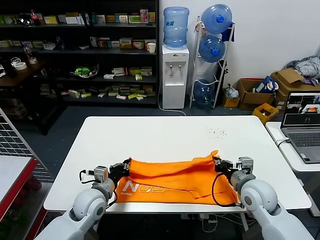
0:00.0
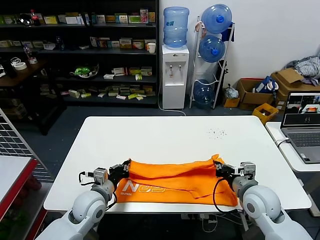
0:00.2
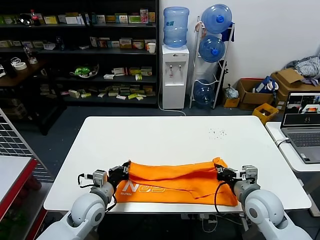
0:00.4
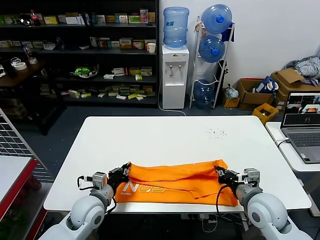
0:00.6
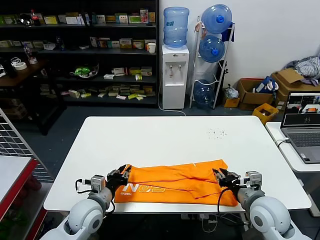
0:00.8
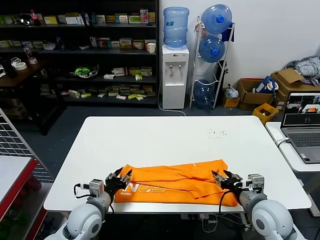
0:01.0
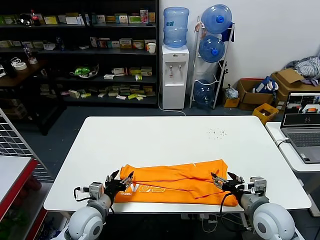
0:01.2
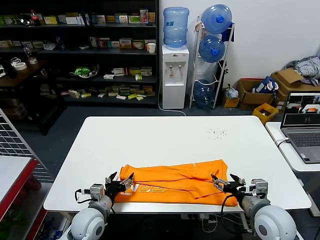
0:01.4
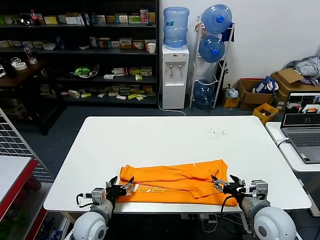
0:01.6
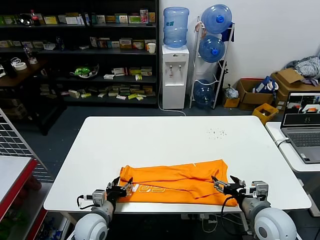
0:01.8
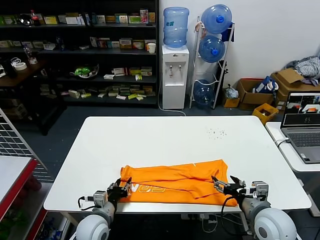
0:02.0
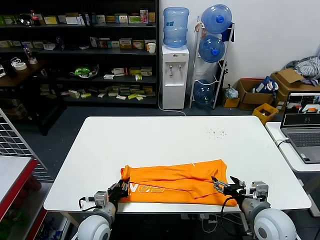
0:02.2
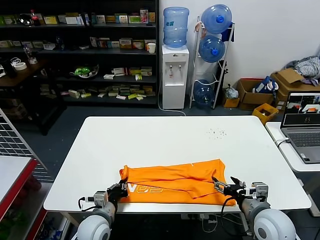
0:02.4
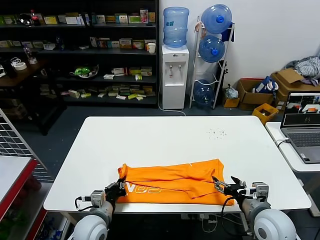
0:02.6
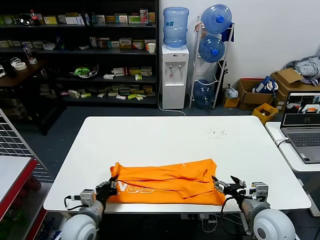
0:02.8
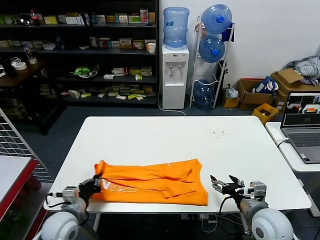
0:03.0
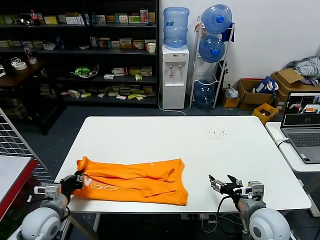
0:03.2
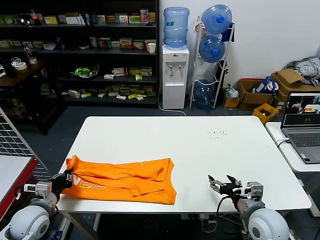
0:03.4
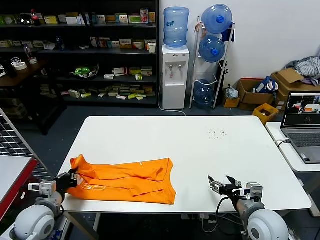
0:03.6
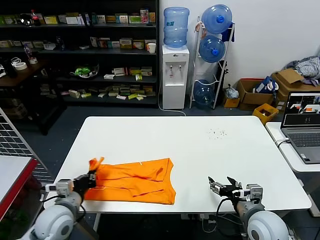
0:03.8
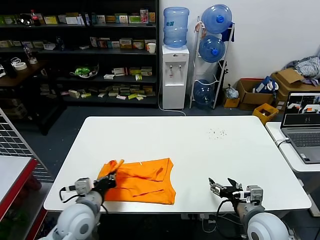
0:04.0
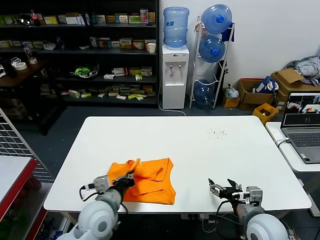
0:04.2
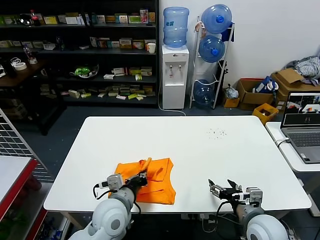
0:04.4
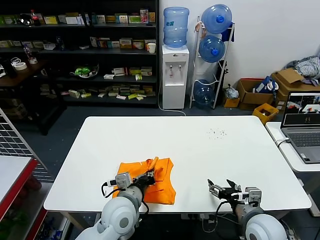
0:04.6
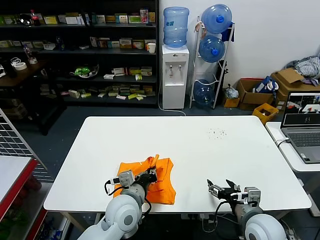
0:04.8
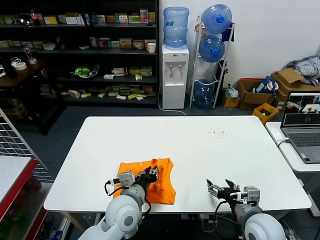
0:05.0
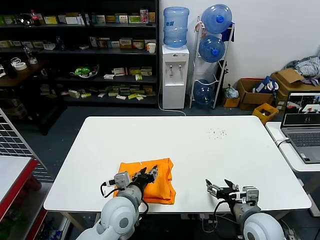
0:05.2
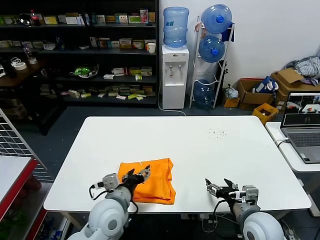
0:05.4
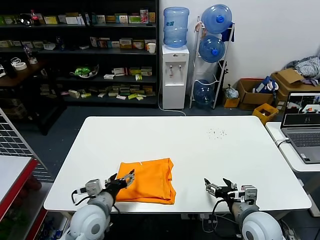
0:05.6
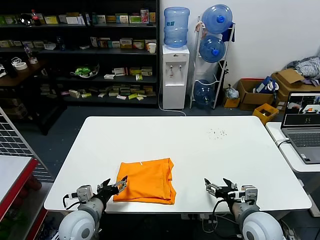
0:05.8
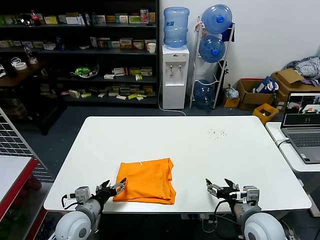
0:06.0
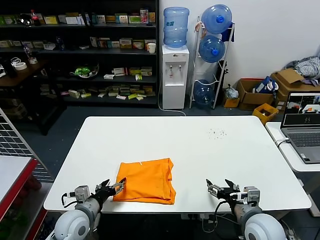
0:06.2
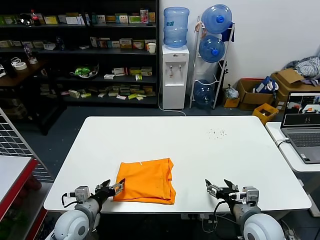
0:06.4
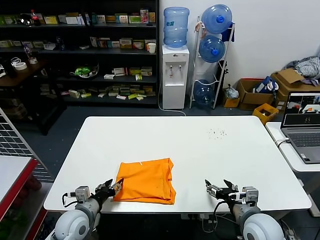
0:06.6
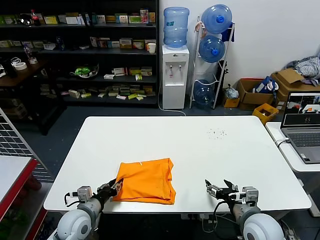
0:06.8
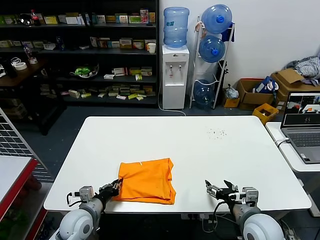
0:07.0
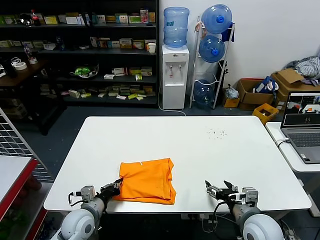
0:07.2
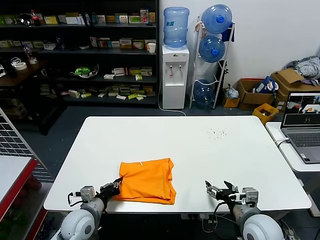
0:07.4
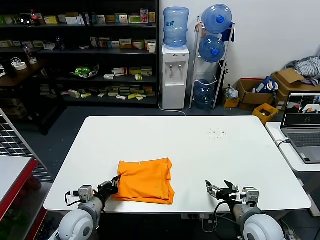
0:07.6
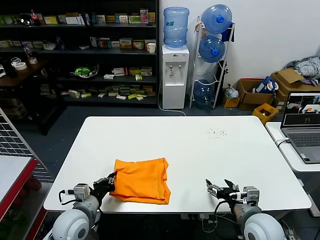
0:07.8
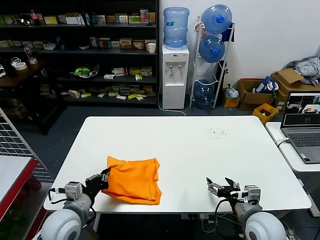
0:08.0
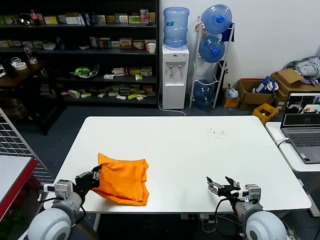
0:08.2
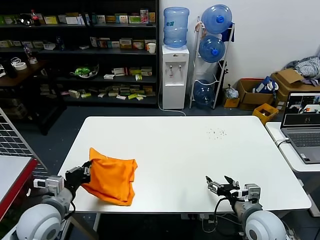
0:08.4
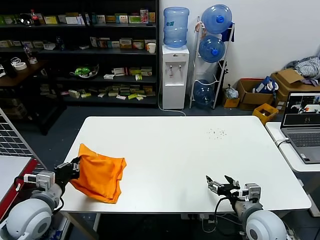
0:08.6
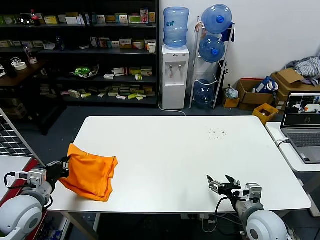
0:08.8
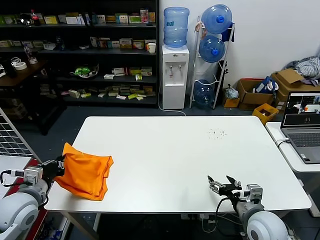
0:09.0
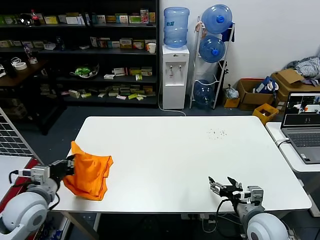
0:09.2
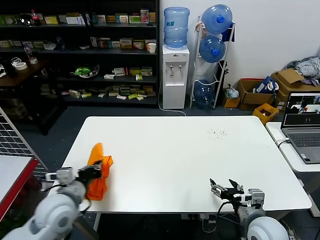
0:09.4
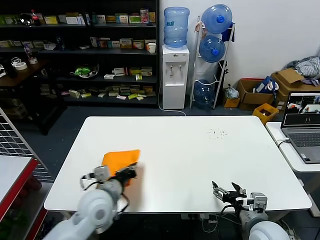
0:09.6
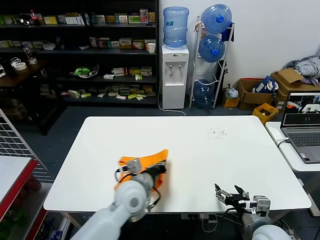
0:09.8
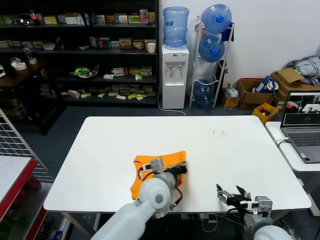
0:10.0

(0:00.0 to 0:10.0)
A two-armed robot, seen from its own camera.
Task of the whole recording: fold and organize the clothes.
Step, 0:01.2 - 0:02.2: use the left gripper to clamp the left edge of the fabric.
Step, 0:02.4 - 0:05.2: use the left gripper to drag the left edge of the fabric to the left and folds it over the right edge.
0:00.0 - 0:01.4: The left gripper shifts by about 5 cm, and opens up, while the right gripper goes roughly 5 cm backward, and opens its fingers.
0:01.4 - 0:02.8: The left gripper closes its fingers.
0:02.8 - 0:04.2: The left gripper travels upward by about 5 cm, and travels to the left and back again, approximately 15 cm each way.
0:04.2 - 0:05.8: The left gripper changes place by approximately 5 cm, and opens.
0:05.8 - 0:07.2: The left gripper travels downward by approximately 5 cm, and closes up.
0:07.2 - 0:08.6: The left gripper goes some 15 cm upward and to the left.
0:08.6 - 0:10.0: The left gripper heads to the right, covering some 30 cm.

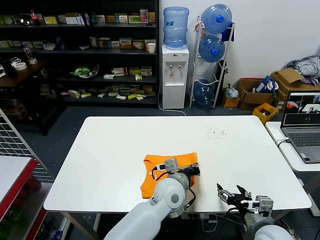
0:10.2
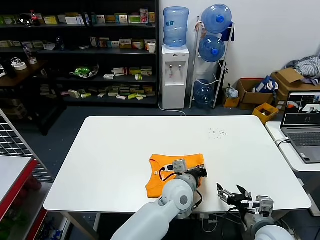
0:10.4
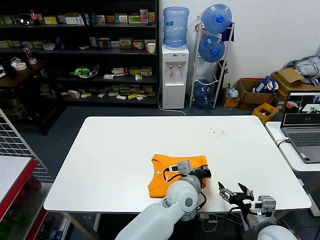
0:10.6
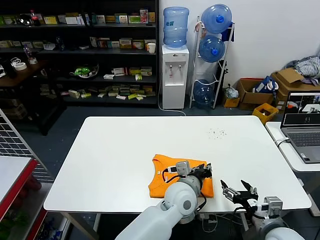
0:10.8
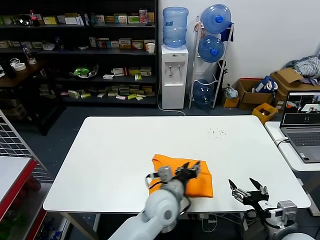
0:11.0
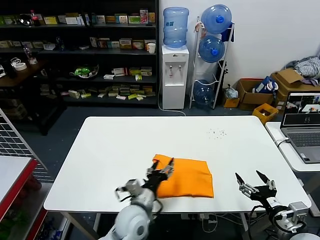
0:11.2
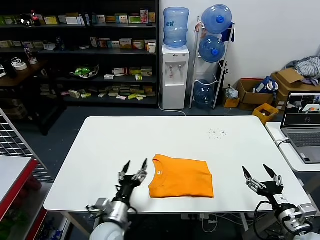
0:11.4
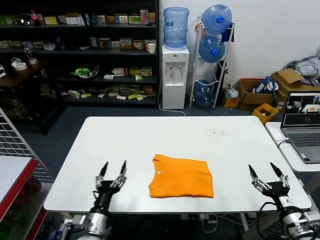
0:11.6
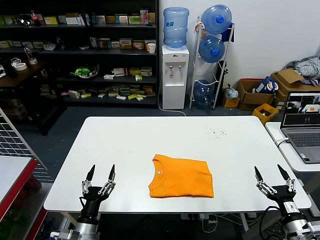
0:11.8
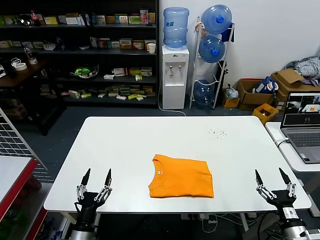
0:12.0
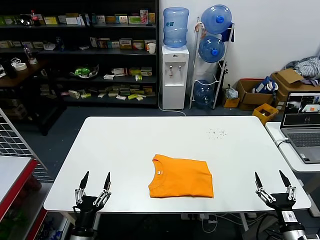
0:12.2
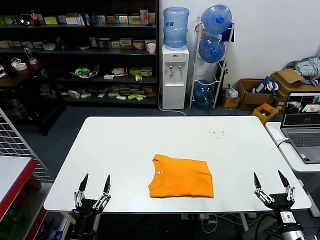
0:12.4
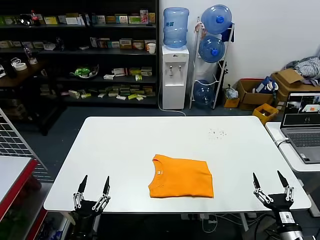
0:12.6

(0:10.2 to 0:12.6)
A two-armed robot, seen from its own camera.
Task of the whole recording: fold and organize the clothes.
0:10.2 - 0:11.4: The right gripper shifts roughly 10 cm to the right; the left gripper is displaced to the left, backward and downward by some 20 cm, and opens its fingers.
0:11.4 - 0:12.6: The right gripper moves downward, about 5 cm. The left gripper moves to the left, backward and downward, roughly 15 cm.

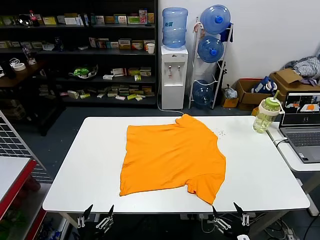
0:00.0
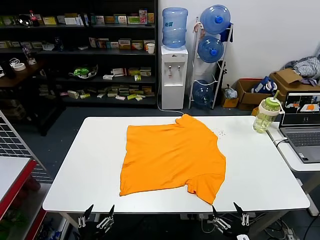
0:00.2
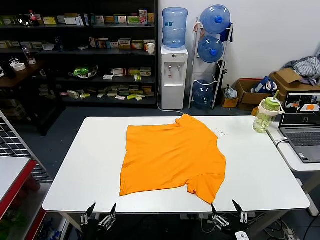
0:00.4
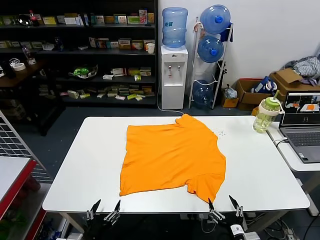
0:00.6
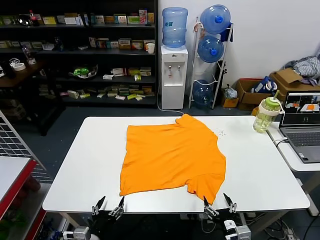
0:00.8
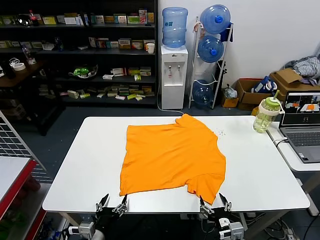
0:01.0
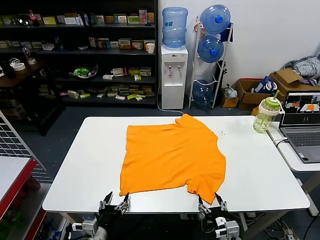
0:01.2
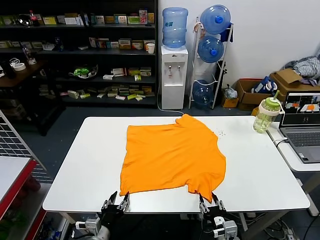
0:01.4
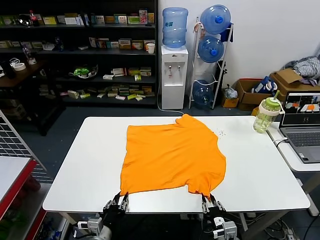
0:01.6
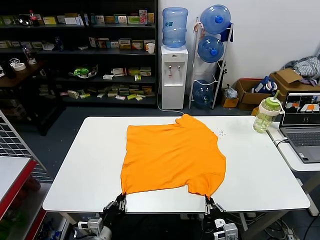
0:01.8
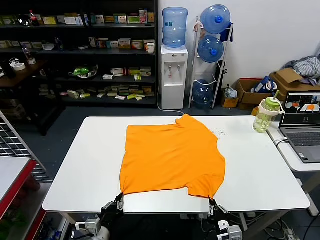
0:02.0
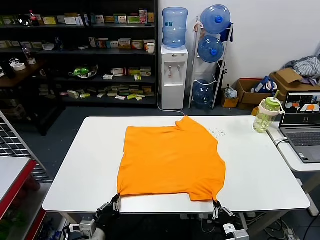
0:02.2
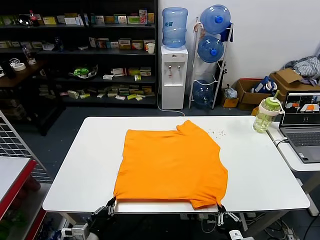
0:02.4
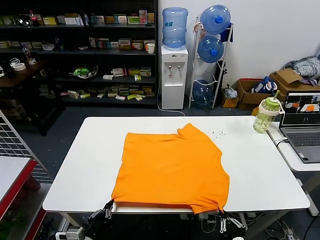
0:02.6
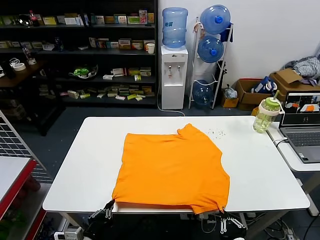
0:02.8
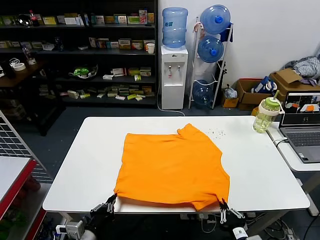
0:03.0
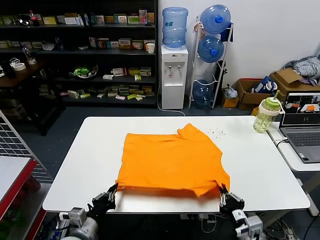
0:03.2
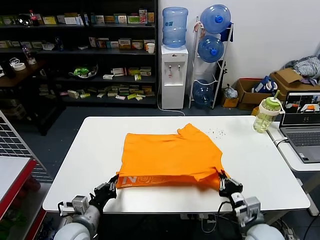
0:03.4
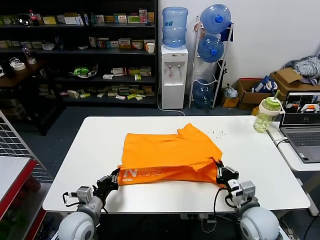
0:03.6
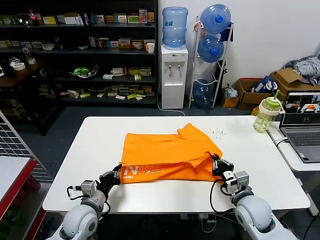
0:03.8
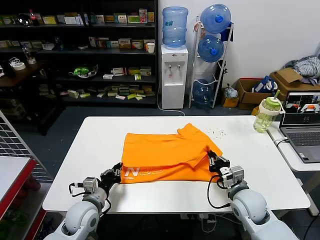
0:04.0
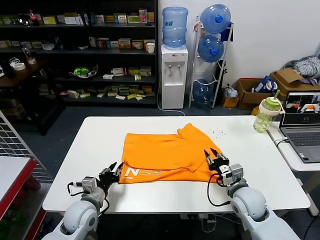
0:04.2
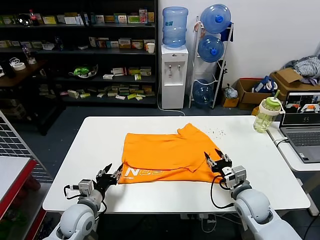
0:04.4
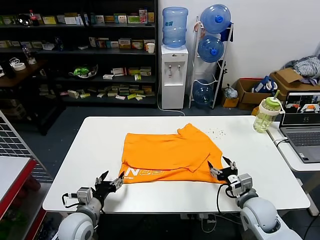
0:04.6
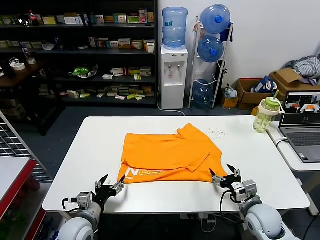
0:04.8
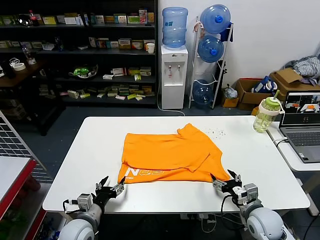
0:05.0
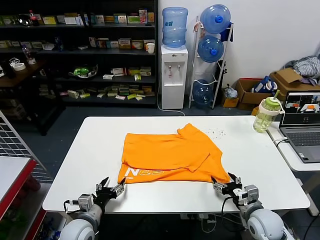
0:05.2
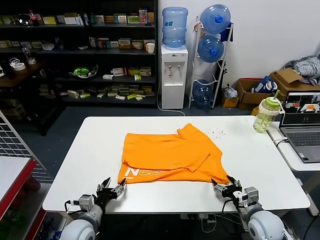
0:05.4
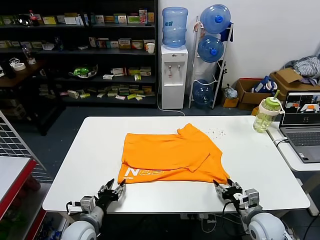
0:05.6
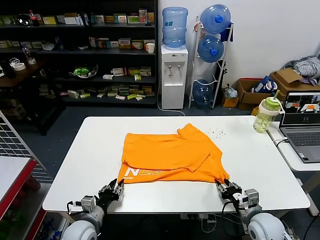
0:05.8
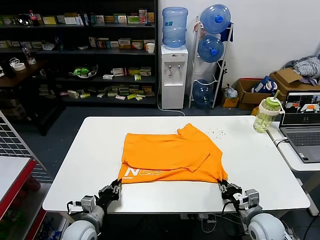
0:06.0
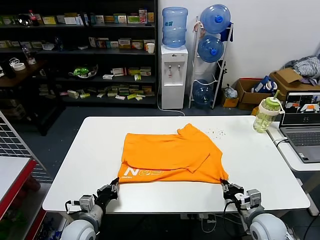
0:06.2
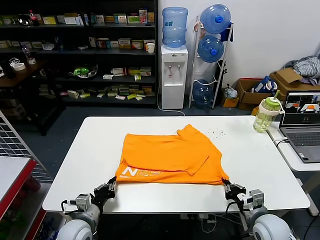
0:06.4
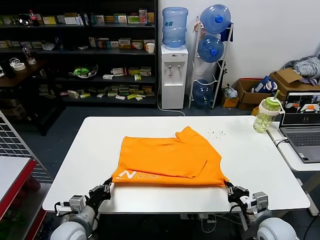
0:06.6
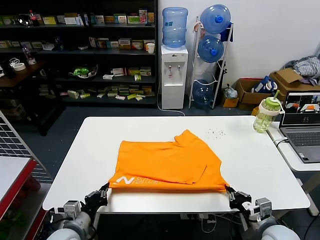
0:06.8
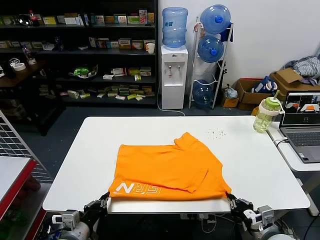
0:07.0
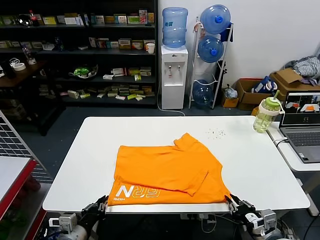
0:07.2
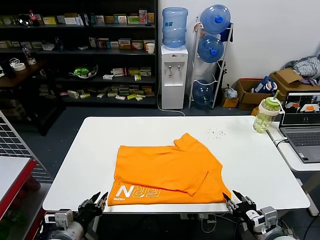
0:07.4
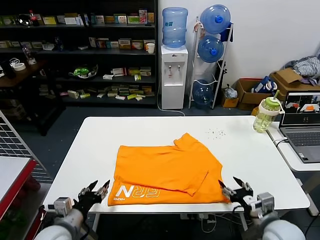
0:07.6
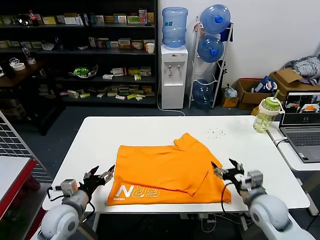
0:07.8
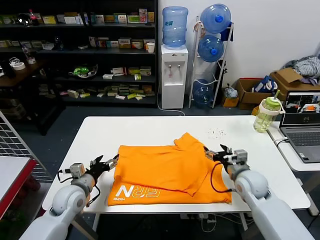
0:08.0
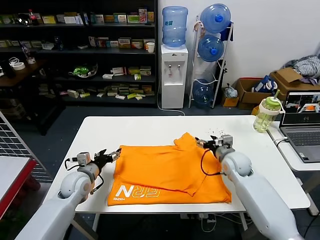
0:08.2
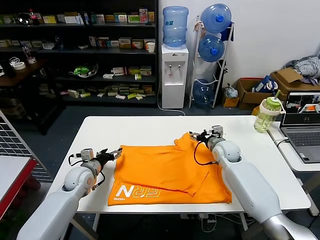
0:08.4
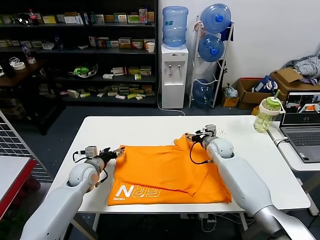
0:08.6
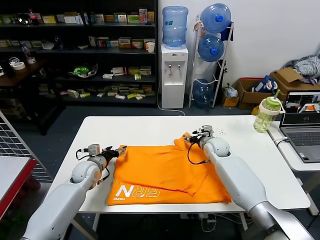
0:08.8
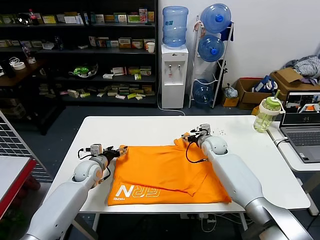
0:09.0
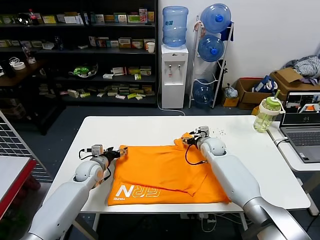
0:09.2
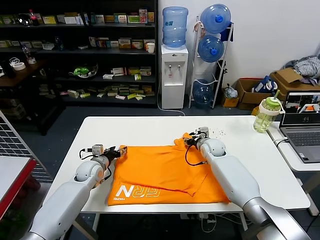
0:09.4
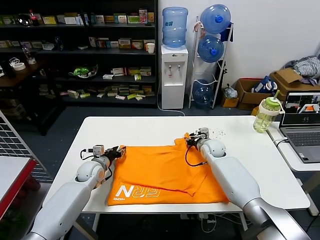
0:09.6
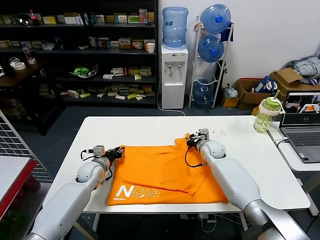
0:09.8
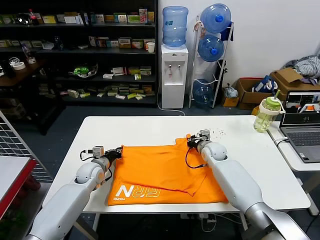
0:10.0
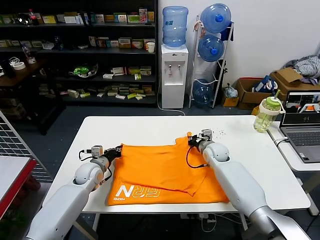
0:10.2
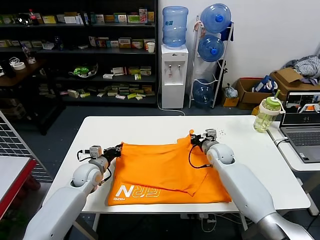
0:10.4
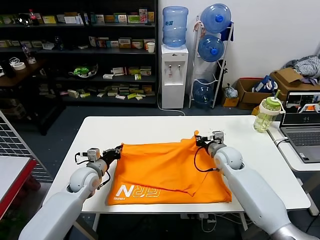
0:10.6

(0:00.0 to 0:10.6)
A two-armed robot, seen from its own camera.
Task of the whole recording: fold and organize the clothes.
Step, 0:00.0 - 0:01.8: use both grippers simultaneously to clamp the lower edge of the clothing fabric.
Step, 0:02.0 - 0:04.0: use both grippers to drag the lower edge of the fabric forward and fold it over the upper edge.
Step, 0:04.2 - 0:07.2: Drag the clothes downward with both gripper.
Step, 0:07.4 - 0:10.0: use both grippers simultaneously to clamp the upper edge of the clothing fabric.
0:01.6 - 0:03.0: Both grippers travel together upward, about 10 cm. The left gripper closes its fingers.
0:03.0 - 0:04.6: Both grippers travel together forward, some 15 cm. The left gripper opens its fingers, while the right gripper opens its fingers.
0:04.6 - 0:06.0: The left gripper closes up. Meanwhile the right gripper closes its fingers.
0:06.0 - 0:07.6: Both grippers travel together upward, some 10 cm. The right gripper reaches roughly 10 cm backward, then returns, and opens up, while the left gripper opens up.
0:07.6 - 0:09.0: The two grippers go roughly 30 cm forward.
0:09.0 - 0:10.6: The left gripper changes place by roughly 5 cm, and closes. The right gripper travels backward by approximately 10 cm, and closes up.
